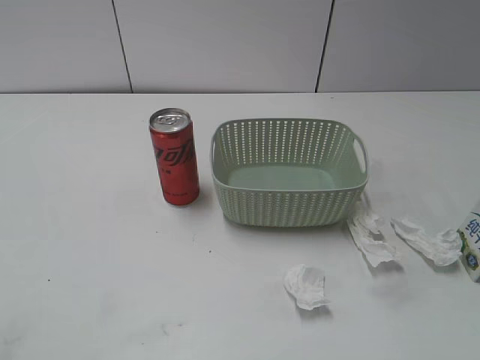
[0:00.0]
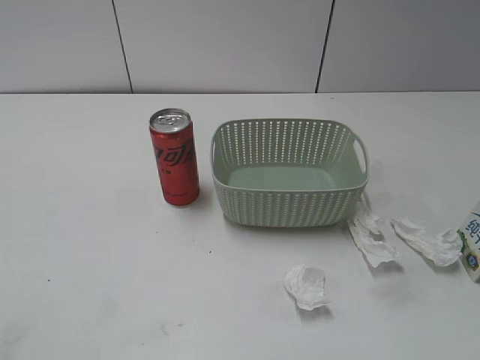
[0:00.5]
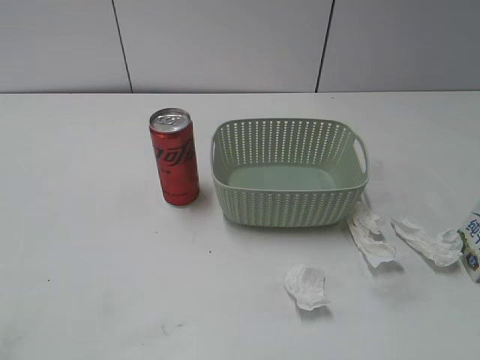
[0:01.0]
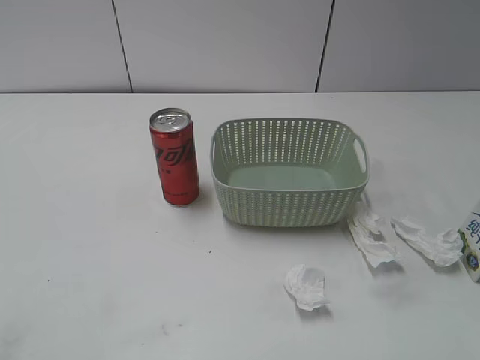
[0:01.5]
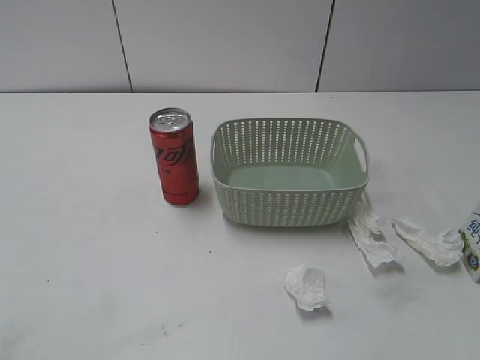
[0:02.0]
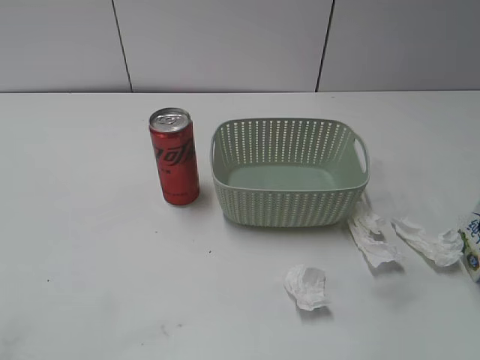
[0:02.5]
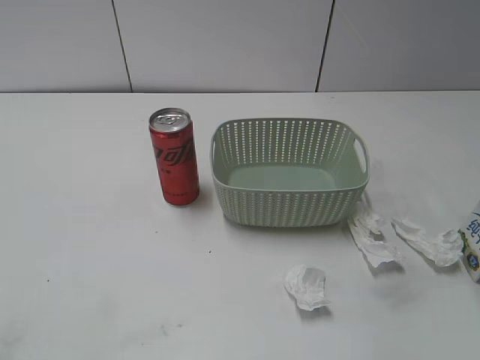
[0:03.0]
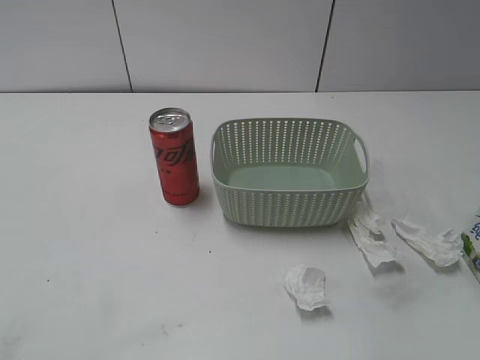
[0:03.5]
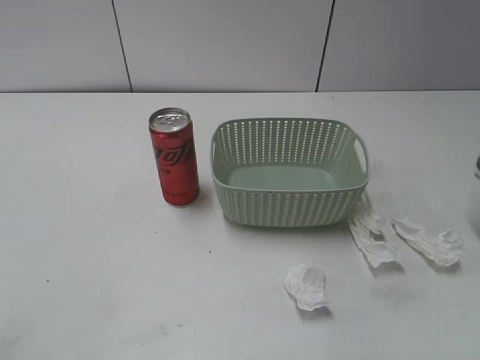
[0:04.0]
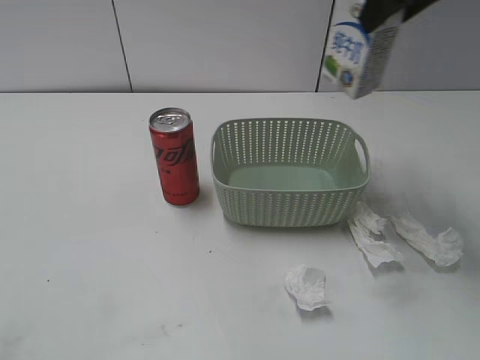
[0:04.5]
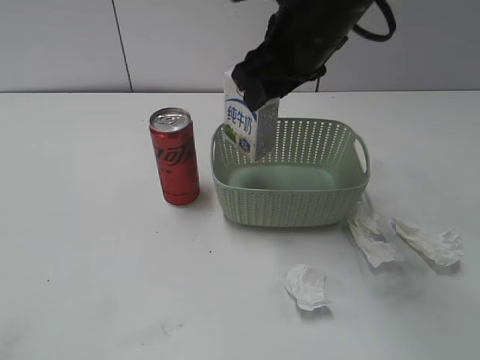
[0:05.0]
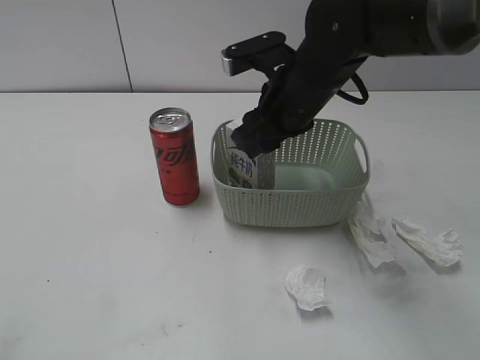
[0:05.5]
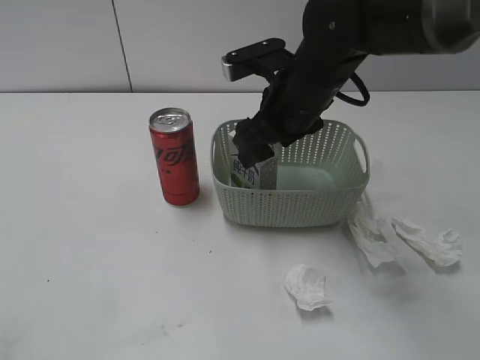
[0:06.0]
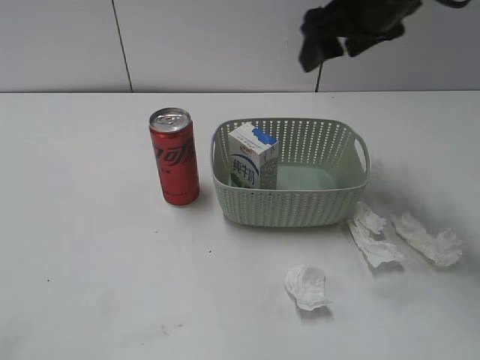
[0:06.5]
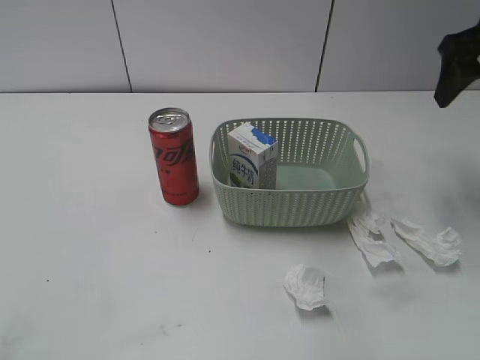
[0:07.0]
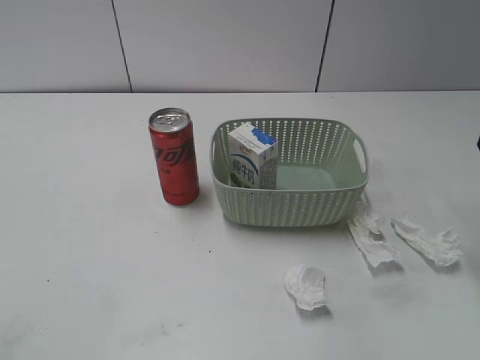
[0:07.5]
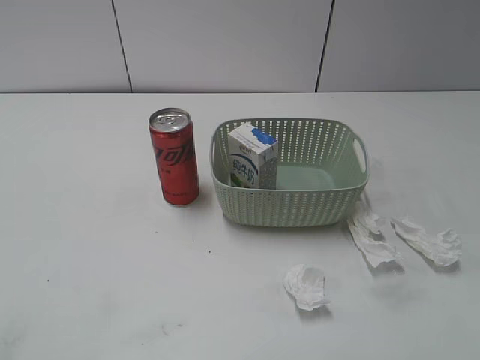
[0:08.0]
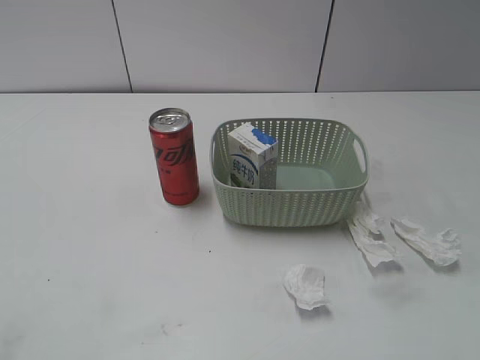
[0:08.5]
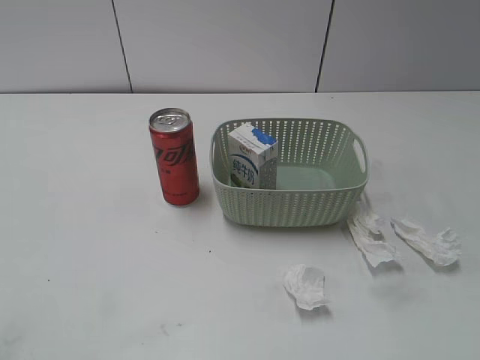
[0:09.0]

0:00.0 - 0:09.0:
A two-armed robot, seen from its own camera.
Step, 0:03.5 - 0:06.0: Place the milk in the basket with right gripper.
0:02.0 - 0:04.5: The right gripper shifts roughly 20 cm forward, to the left and upward, and closes.
0:04.5 - 0:07.0: The right gripper heads to the right and downward, covering about 15 cm, and opens.
0:07.0 - 0:09.0: The right gripper heads backward, covering roughly 35 cm.

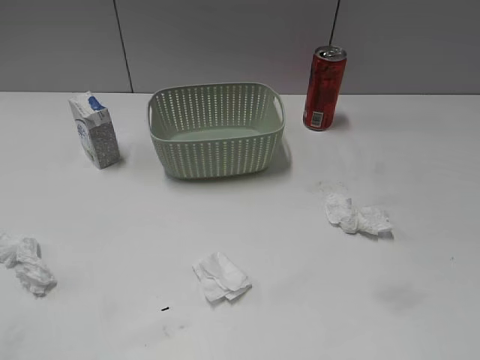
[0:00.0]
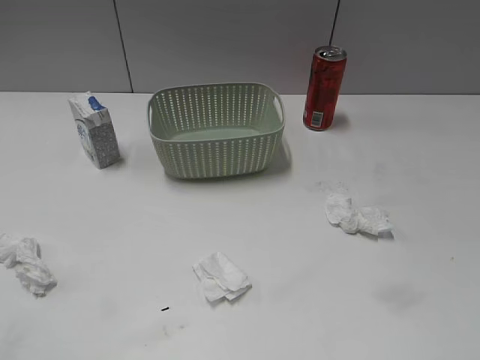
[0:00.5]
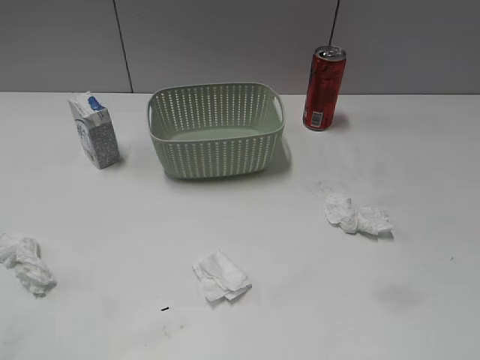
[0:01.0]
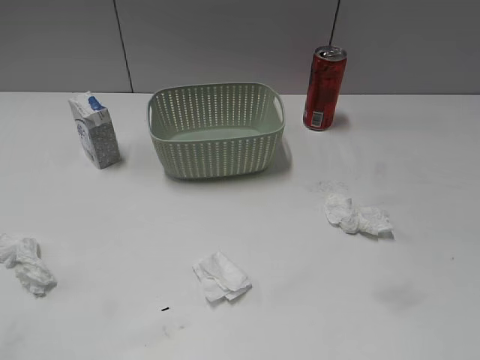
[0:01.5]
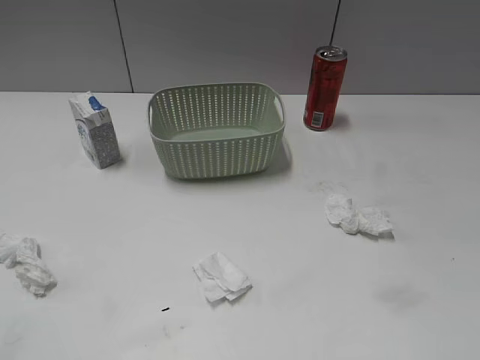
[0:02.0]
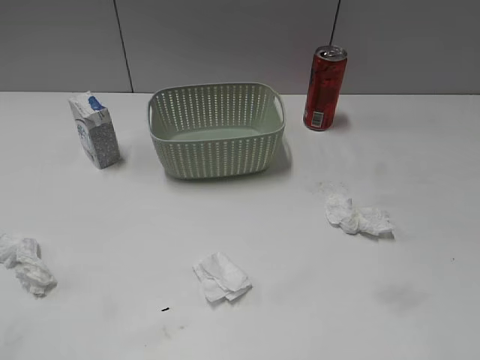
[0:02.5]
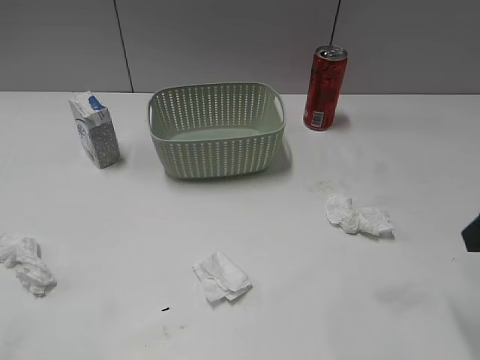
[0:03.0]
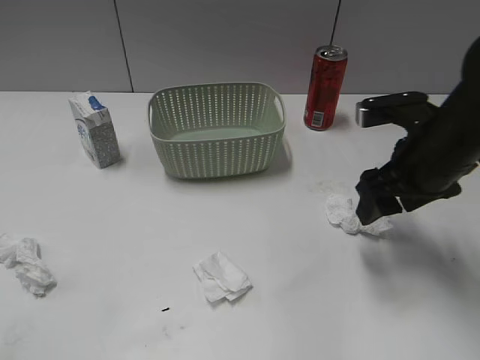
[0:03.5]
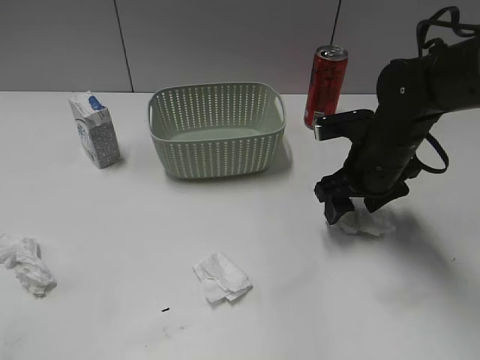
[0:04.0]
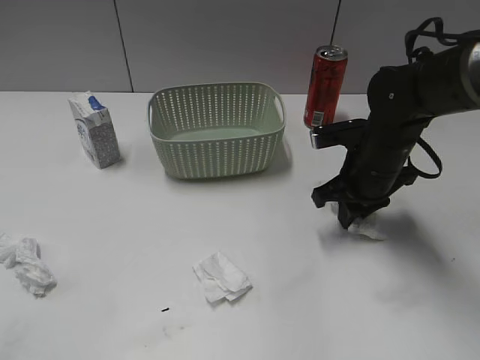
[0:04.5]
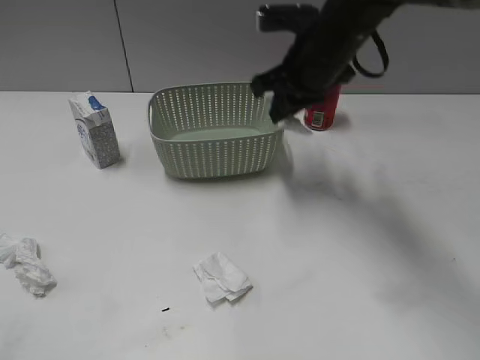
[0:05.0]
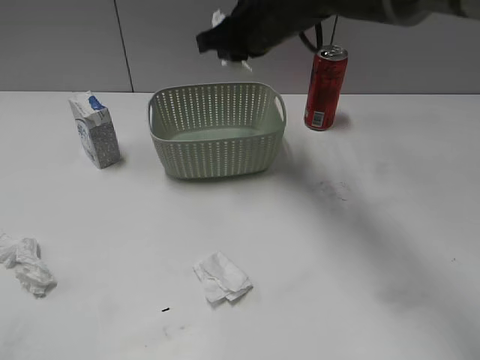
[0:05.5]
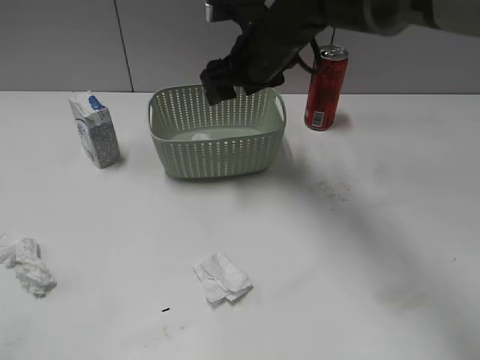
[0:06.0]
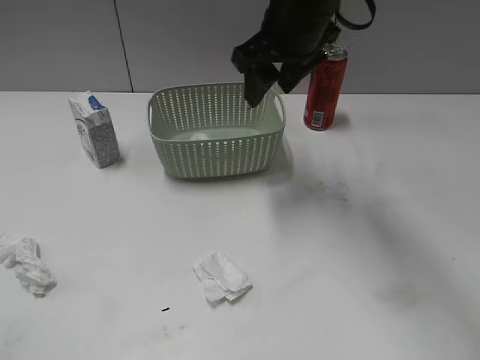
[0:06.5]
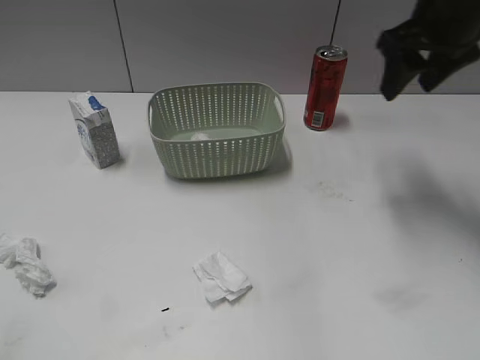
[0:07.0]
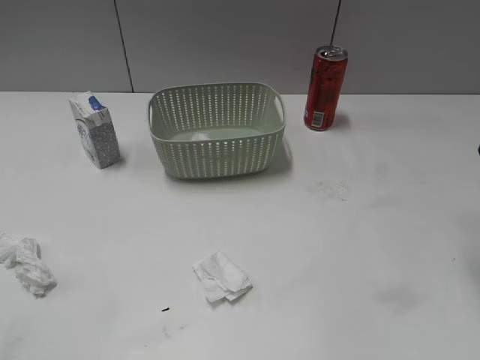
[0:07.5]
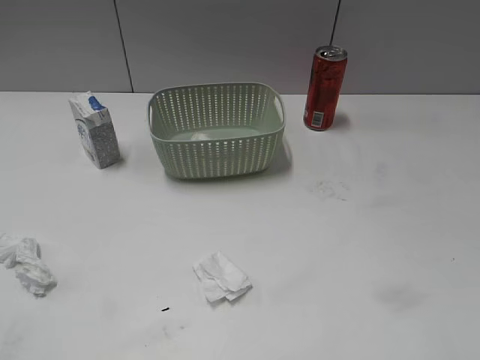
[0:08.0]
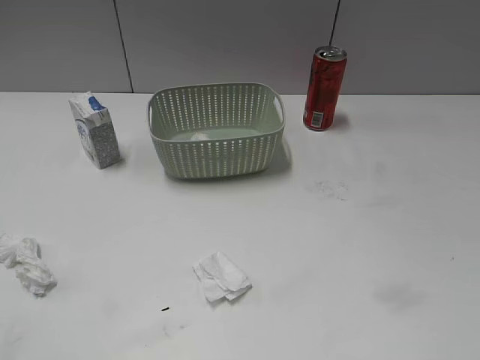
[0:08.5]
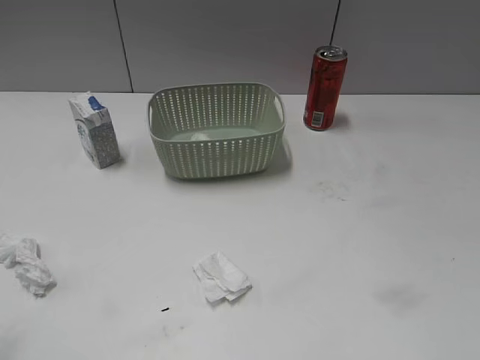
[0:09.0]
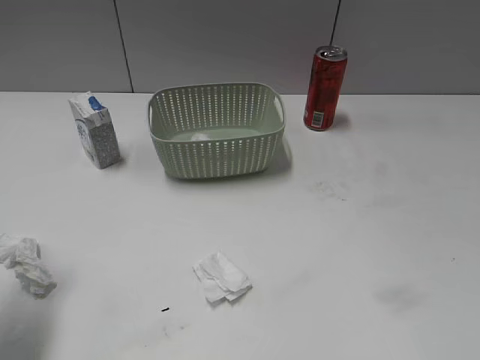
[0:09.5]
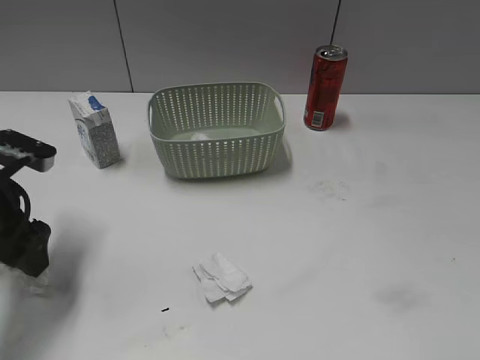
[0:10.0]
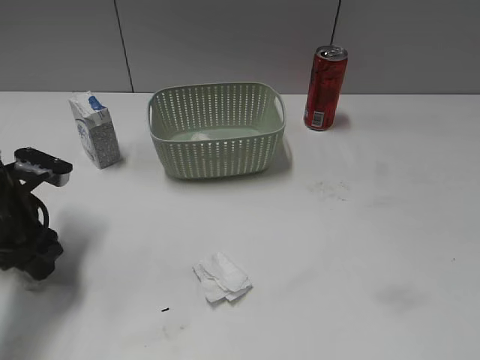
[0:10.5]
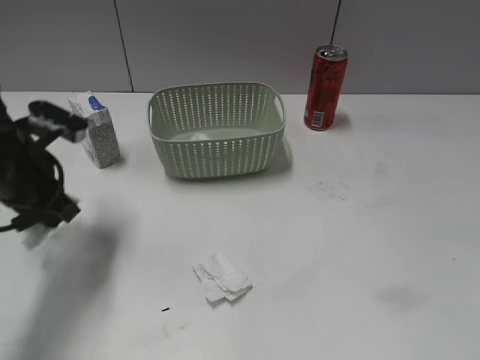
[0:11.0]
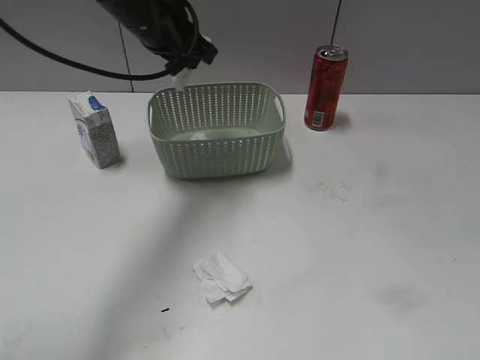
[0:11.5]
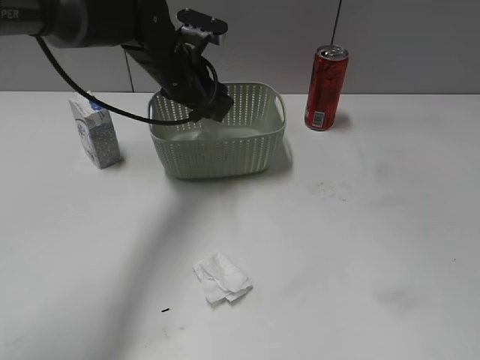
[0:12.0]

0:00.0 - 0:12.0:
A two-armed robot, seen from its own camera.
Step, 0:03.0 - 0:04.5: Grasp the waste paper with right gripper.
Step, 0:05.0 - 0:06.0: Place the waste paper in the basket with right gripper.
Step, 0:06.5 - 0:10.5: Grasp the waste paper with left gripper.
0:02.0 - 0:04.0: The right gripper moves forward, downward and to the left, approximately 40 cm.
0:04.0 - 0:06.0: The right gripper is displaced to the left, forward and upward by about 20 cm, and closes, then reopens.
0:06.0 - 0:08.0: The right gripper moves backward and to the right, some 40 cm.
0:08.0 - 0:10.0: The left gripper goes some 30 cm forward and downward.
0:10.0 - 0:12.0: The left gripper heads to the right and forward, covering about 25 cm, and closes, then reopens.

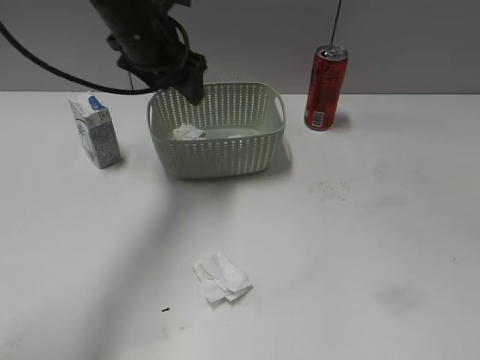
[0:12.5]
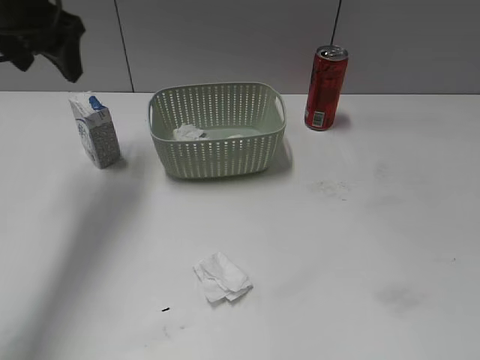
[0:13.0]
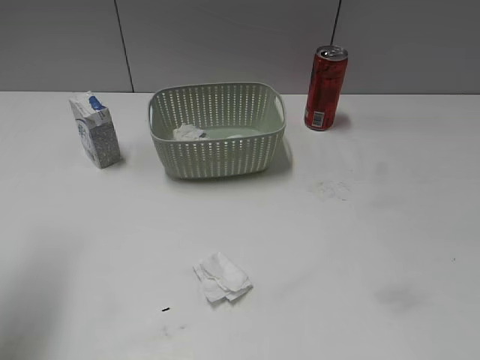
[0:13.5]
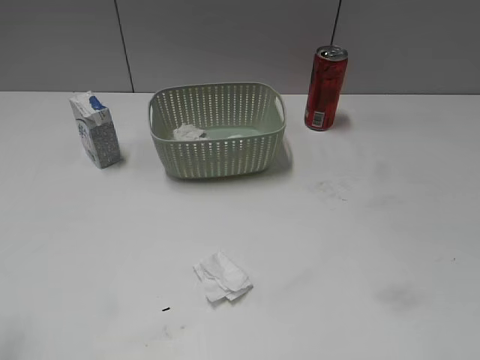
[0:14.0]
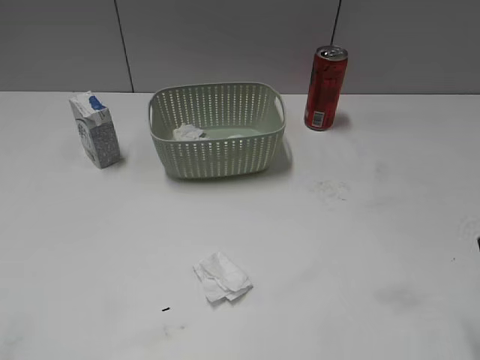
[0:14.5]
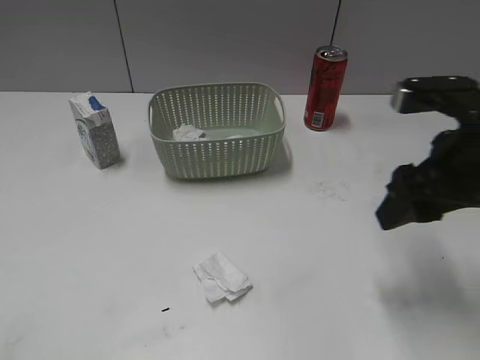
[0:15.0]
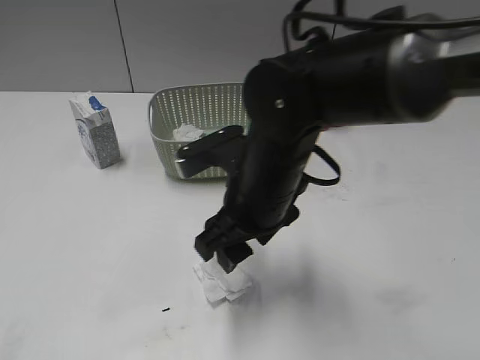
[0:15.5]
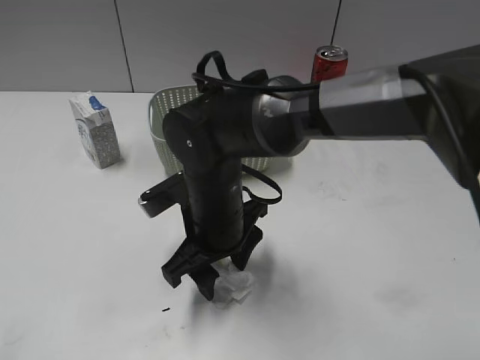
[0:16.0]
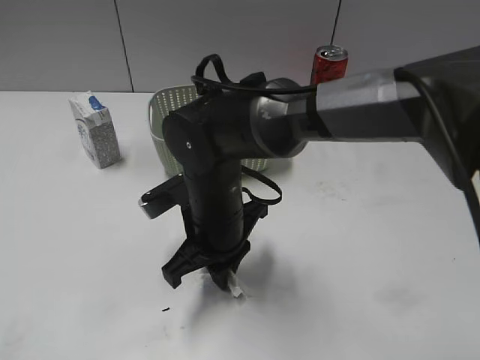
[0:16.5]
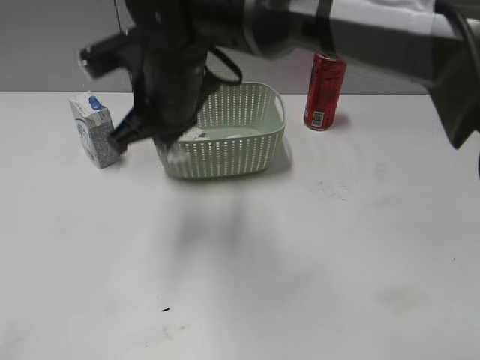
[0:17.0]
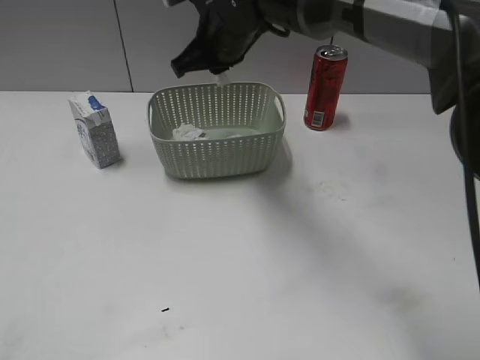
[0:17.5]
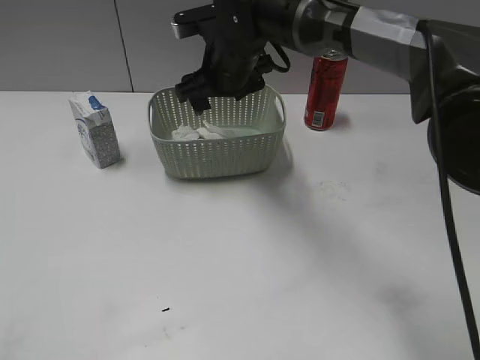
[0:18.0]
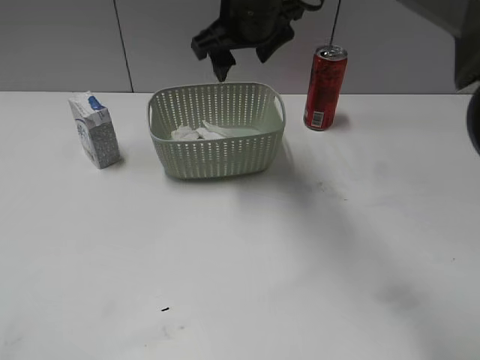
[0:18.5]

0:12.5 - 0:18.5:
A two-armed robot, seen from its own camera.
Step, 0:12.5 - 0:16.5: Grasp the waste paper with right gripper.
Step, 0:17.0 - 0:18.0: Place the waste paper in the basket with right gripper.
0:12.5 - 0:14.5: The right gripper goes some 15 cm forward; the left gripper heads backward and to the left, covering approximately 40 cm.
0:14.5 - 0:16.5: The right gripper is displaced to the left and downward by roughly 35 cm, and closes.
0:16.5 - 0:18.5: The right gripper shifts some 25 cm upward and forward, and opens its fingers.
